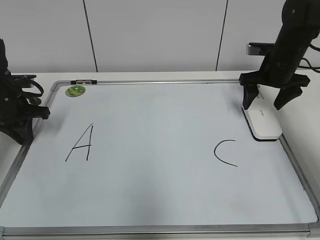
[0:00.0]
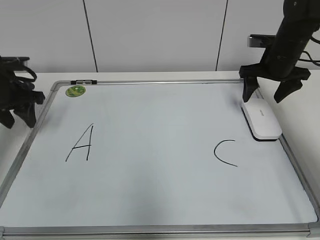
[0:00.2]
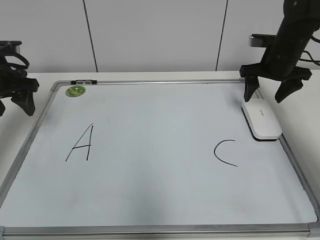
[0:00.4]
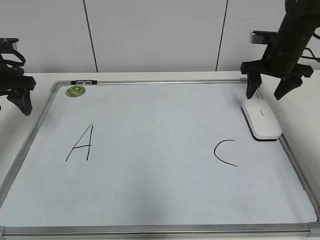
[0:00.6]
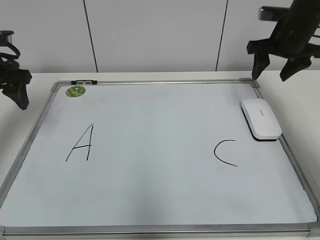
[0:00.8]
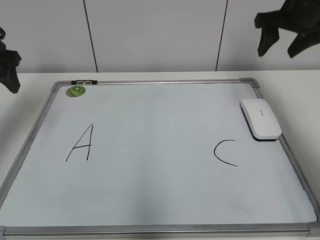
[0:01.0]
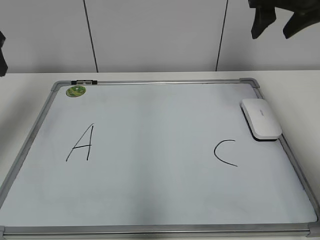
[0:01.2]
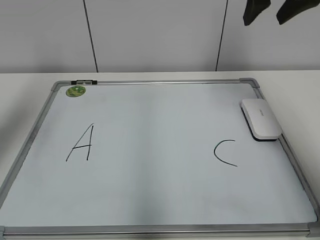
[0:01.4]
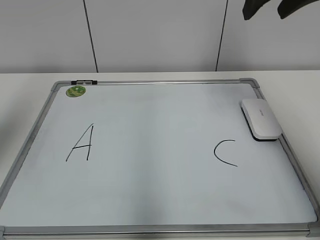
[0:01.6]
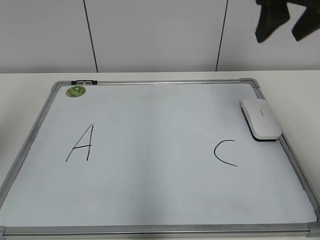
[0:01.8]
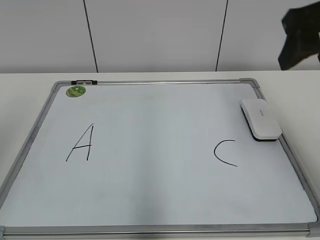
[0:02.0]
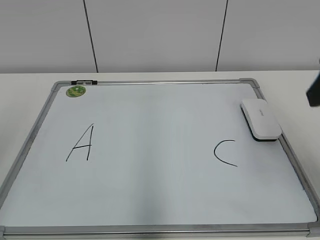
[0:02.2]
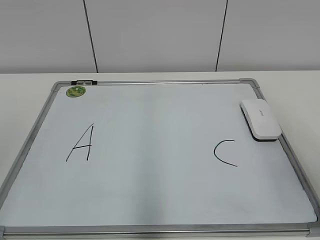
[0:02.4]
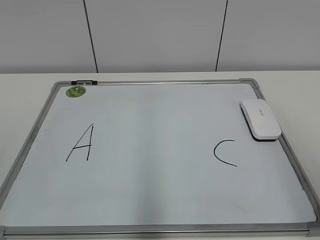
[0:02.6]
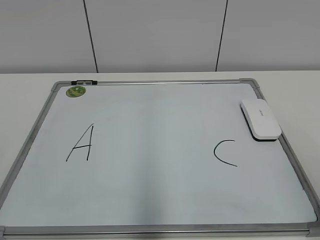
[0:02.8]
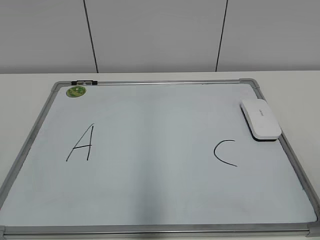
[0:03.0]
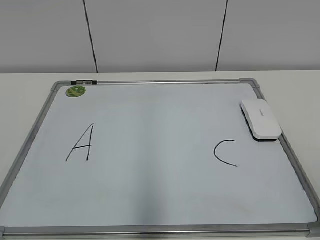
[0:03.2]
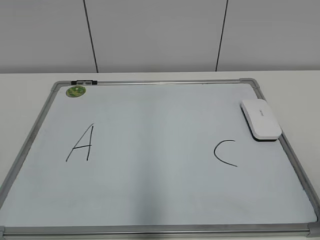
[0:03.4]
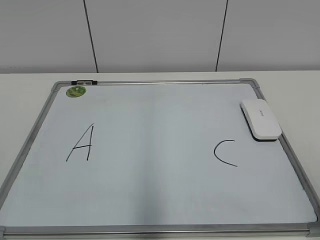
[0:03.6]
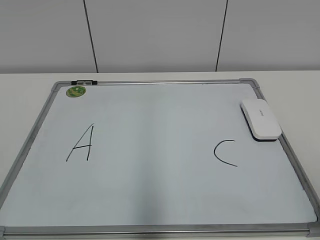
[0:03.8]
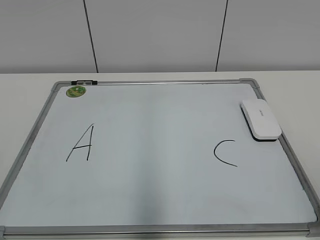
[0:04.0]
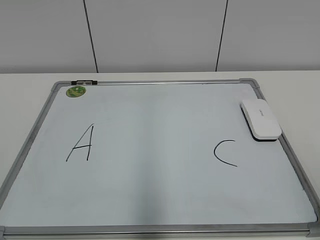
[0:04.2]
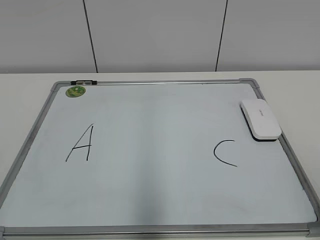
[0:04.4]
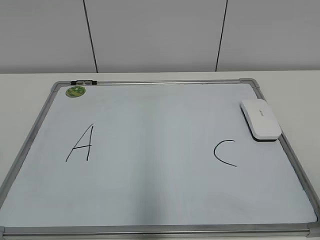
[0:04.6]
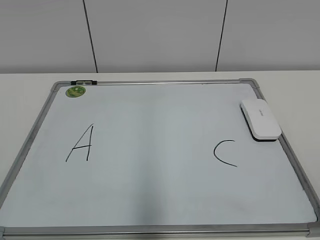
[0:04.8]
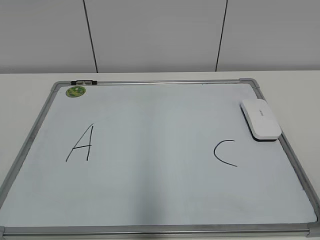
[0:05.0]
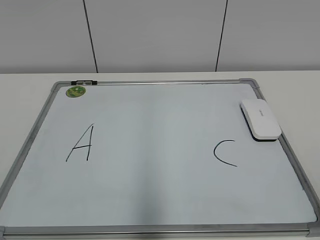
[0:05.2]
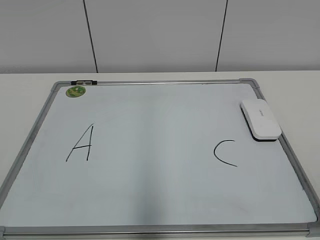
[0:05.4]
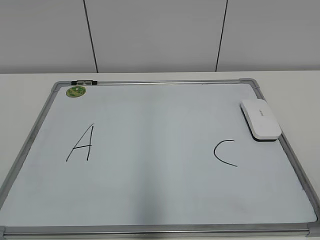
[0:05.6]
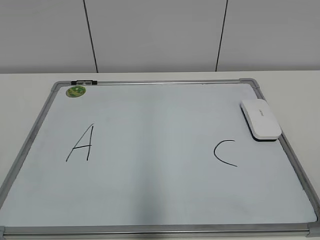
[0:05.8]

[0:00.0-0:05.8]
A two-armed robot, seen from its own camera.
Task of the whole recording: pick up the eraser on the blackboard and erase the letter "B".
0:00.0 to 0:01.4: The right gripper heads upward, covering some 20 cm, and closes its fingers; the left gripper goes approximately 25 cm upward and backward, and opens up.
0:01.4 to 0:02.8: Both grippers move backward, roughly 30 cm.

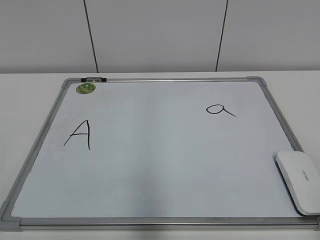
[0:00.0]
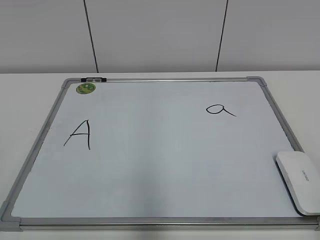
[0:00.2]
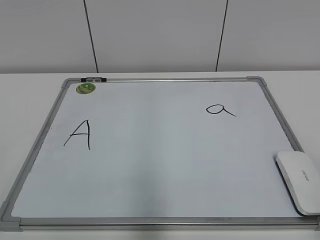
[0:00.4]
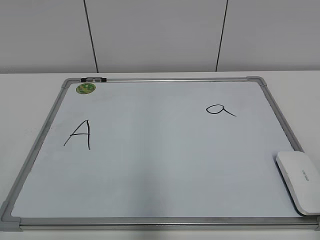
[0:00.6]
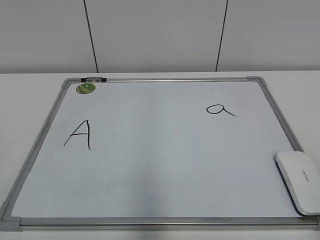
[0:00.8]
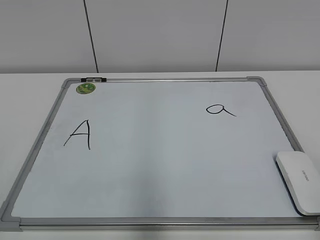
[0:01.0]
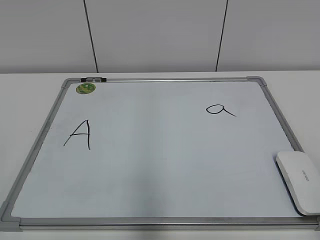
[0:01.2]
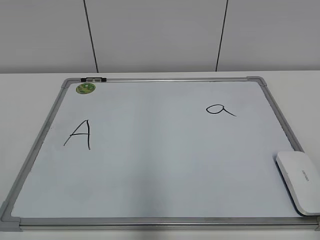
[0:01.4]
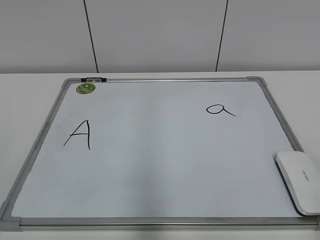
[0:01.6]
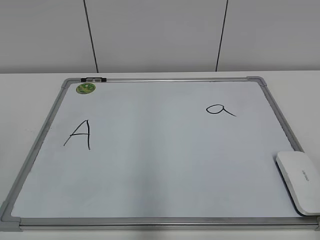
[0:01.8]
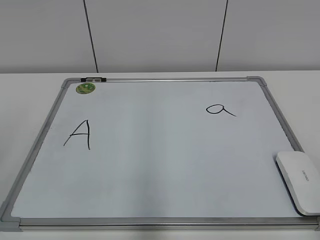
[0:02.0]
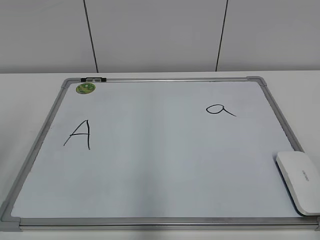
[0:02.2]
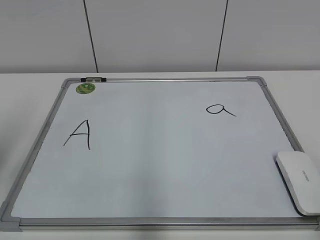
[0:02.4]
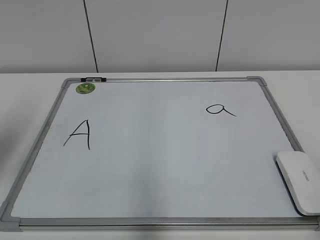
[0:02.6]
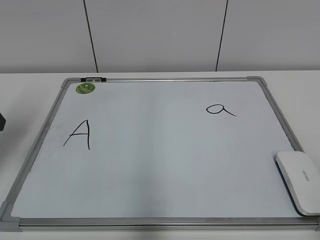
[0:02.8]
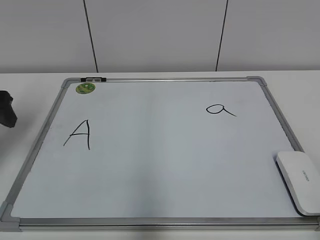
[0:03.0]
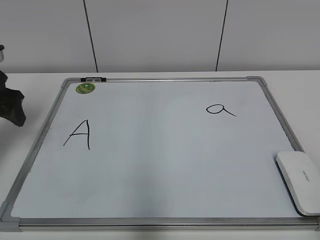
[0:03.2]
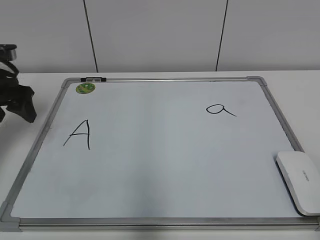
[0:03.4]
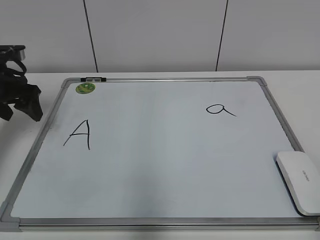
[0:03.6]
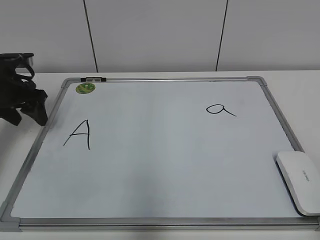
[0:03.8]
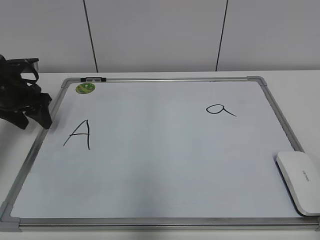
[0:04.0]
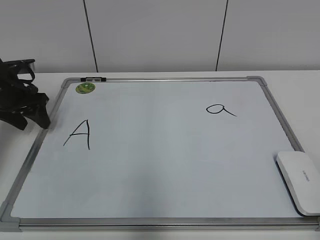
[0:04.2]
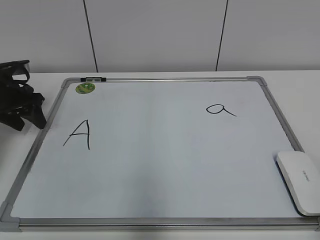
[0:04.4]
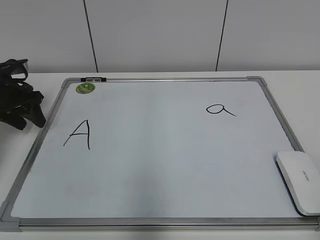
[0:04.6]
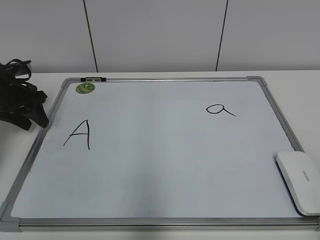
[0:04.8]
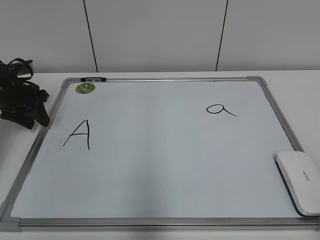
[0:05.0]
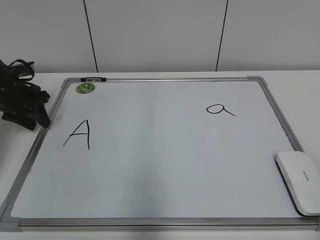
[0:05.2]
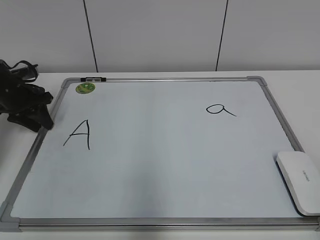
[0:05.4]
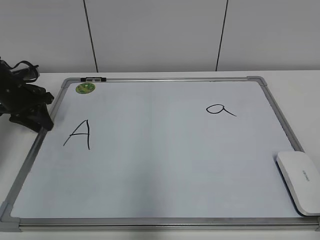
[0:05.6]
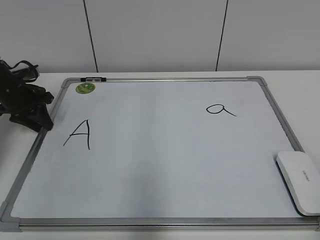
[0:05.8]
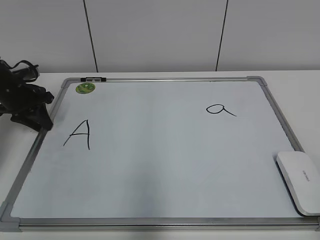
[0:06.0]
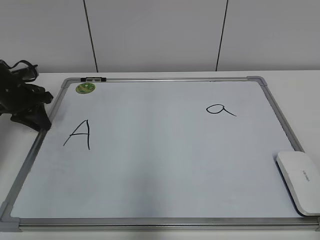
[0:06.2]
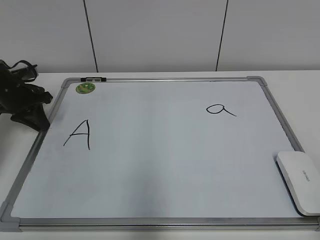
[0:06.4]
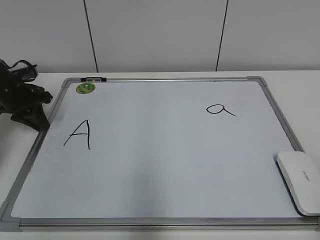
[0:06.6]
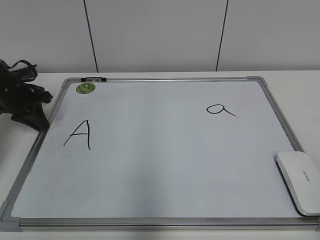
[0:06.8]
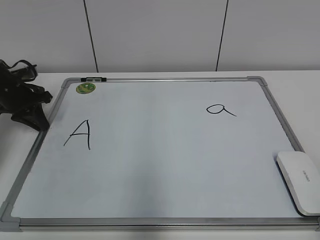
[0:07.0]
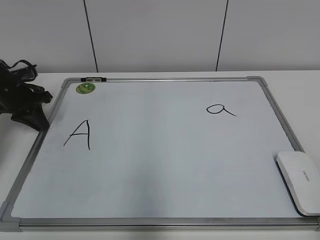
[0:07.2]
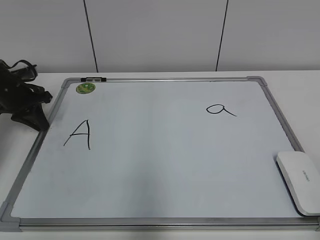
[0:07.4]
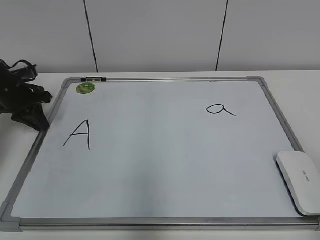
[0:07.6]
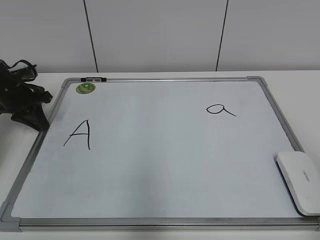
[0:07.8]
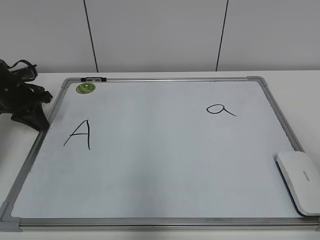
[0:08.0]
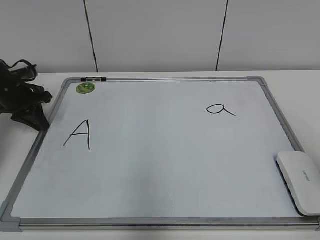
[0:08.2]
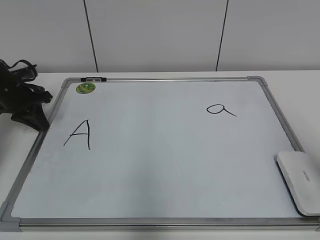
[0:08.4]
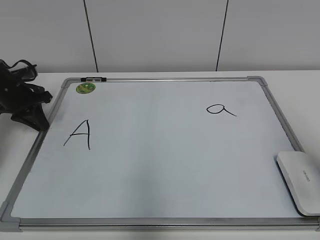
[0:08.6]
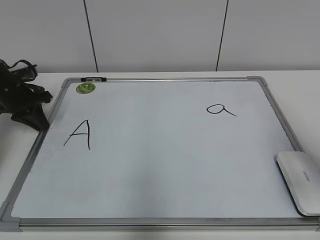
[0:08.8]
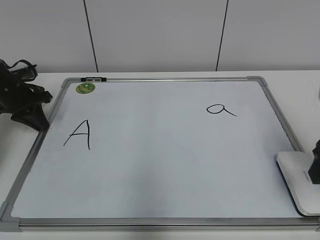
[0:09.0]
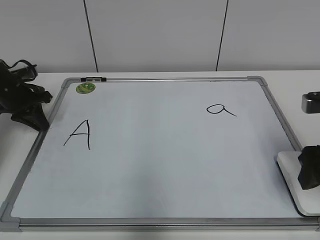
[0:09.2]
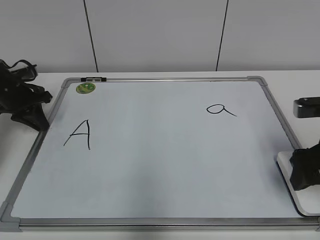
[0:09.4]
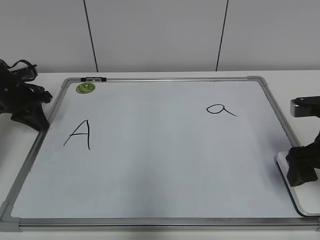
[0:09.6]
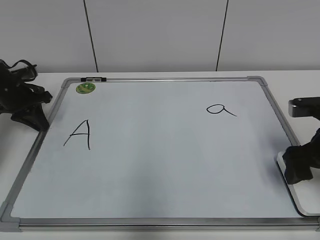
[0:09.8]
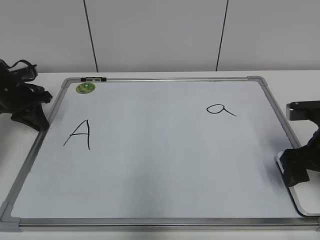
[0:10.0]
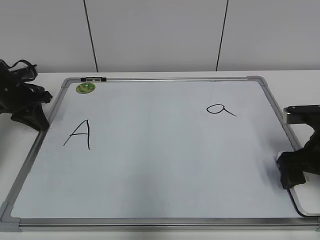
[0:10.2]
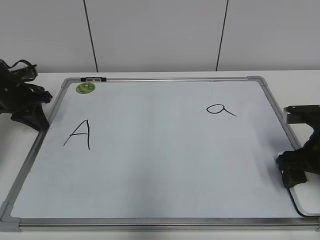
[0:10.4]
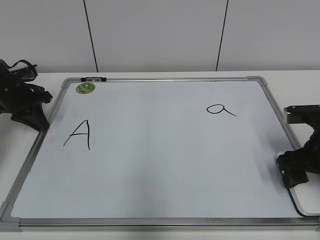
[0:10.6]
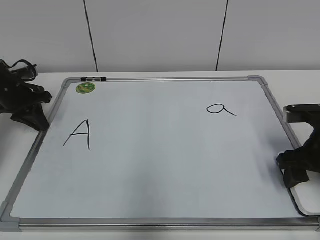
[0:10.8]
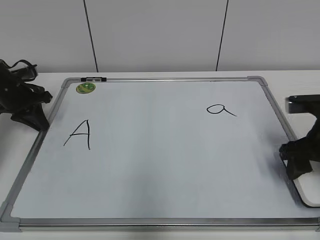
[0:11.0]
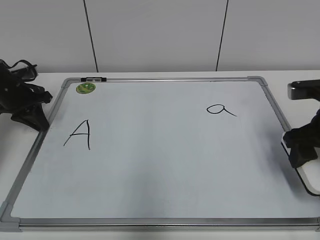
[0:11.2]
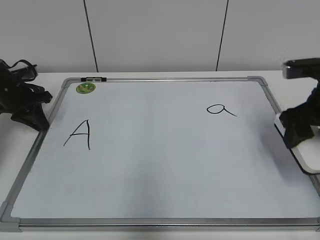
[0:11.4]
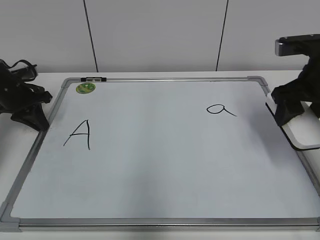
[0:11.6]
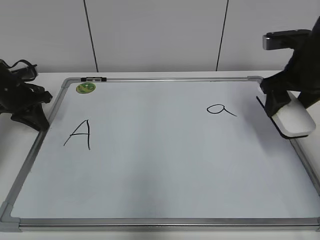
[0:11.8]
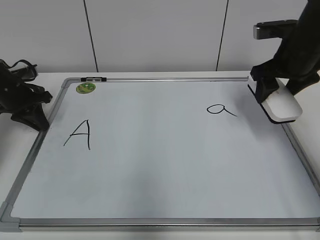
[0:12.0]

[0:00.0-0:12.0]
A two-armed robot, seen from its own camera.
Task of the whole recording: pick up the eraser on the blackboard and erase the letter "a".
Step, 0:00.0 to 0:06.2: Hold the drawing board steady with your left hand.
Step, 0:06.4 to 0:10.6: Grab the eraser with your right hand.
0:01.6 to 0:03.0: The left gripper is displaced forward by some 30 cm.
0:03.0 to 0:04.4: The left gripper heads forward and downward, covering some 10 cm.
0:04.4 to 0:06.0: The left gripper closes its fingers.
0:07.6 to 0:09.0: The right gripper moves forward, about 20 cm.
0:09.0 to 0:10.4: The right gripper goes approximately 10 cm downward and forward, and opens, then closes again.
0:10.4 to 0:12.0: The right gripper is displaced forward and upward by approximately 15 cm, and closes up.

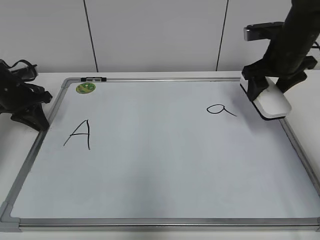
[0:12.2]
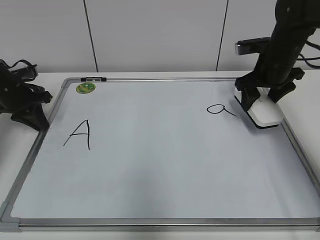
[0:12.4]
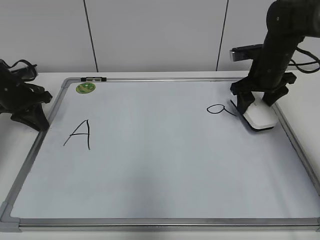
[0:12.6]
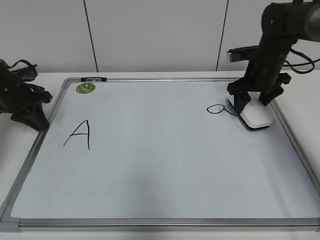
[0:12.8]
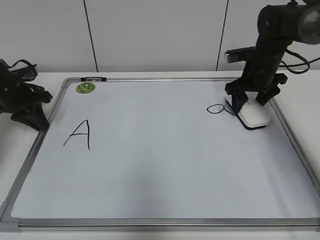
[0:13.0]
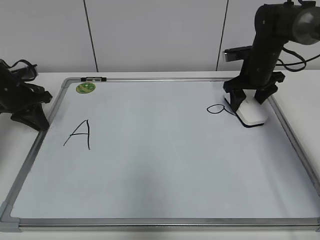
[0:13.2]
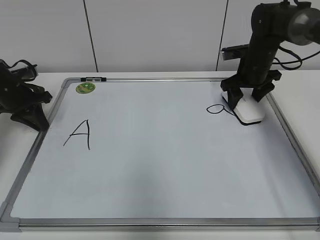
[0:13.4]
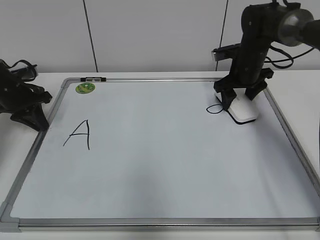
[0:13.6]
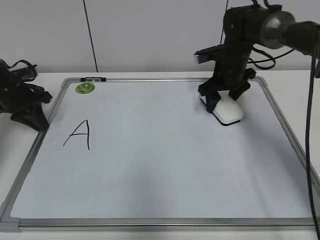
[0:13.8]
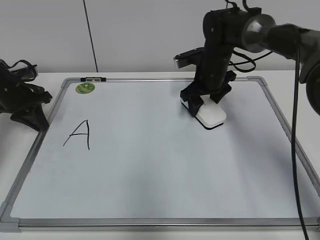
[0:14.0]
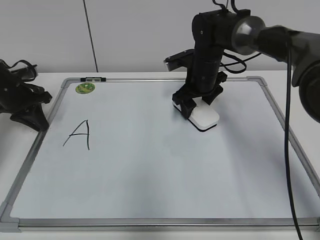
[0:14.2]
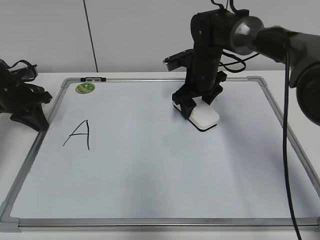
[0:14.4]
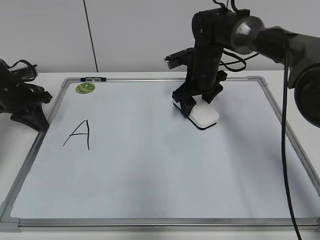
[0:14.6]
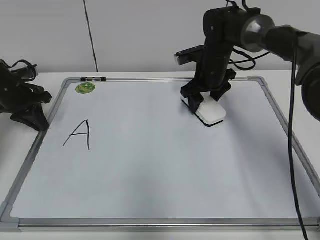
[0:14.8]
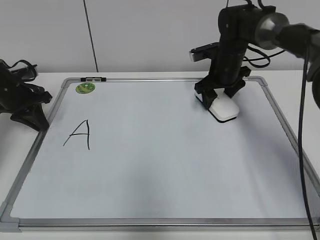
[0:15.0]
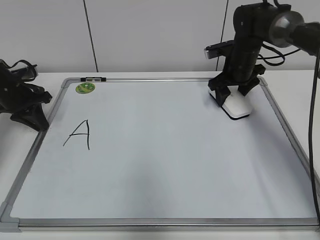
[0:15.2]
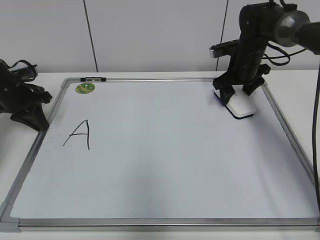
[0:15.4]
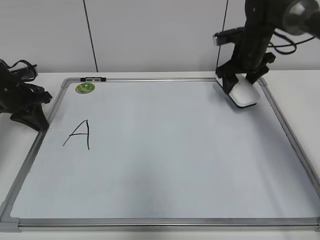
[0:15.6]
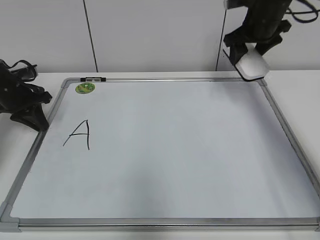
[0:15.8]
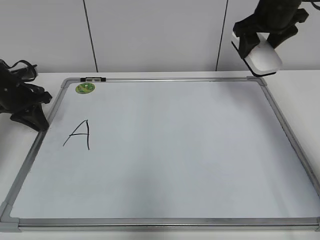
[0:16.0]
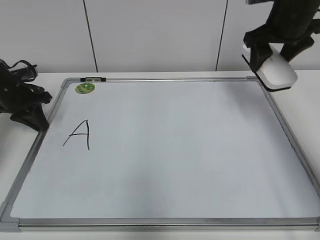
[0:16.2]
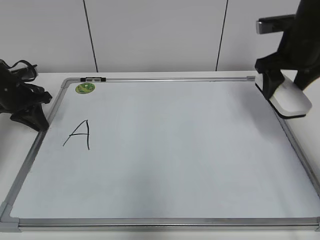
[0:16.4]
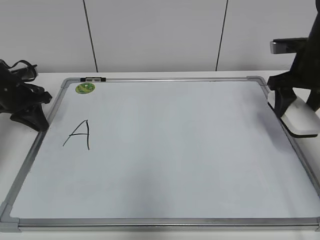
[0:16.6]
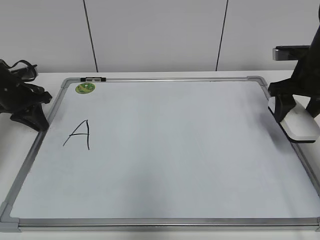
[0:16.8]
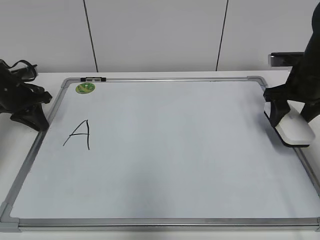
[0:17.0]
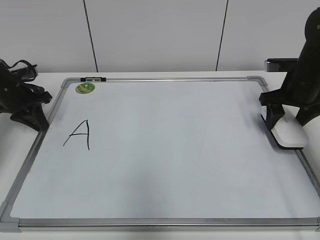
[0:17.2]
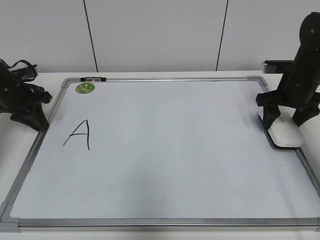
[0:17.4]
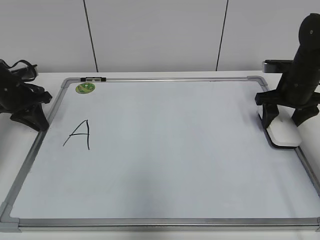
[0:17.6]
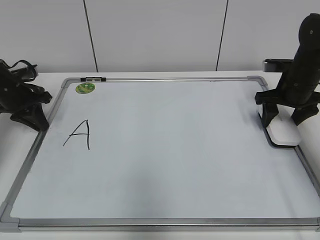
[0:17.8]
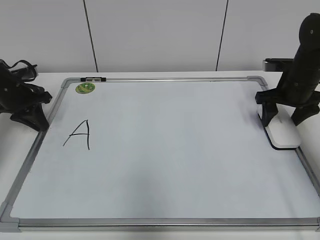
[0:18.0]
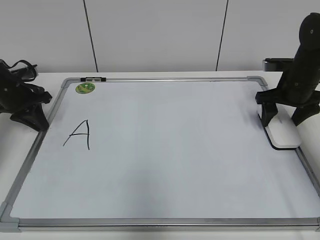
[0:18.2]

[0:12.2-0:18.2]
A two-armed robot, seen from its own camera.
Task of the whole recording: pick up the eraser on the blackboard and erase the letter "a".
Step, 0:12.2 to 0:15.0: Erase the letter a with your right hand.
Step, 0:15.4 to 0:18.2: Put down the eraser with your right hand.
0:12.2 to 0:13.8: The right gripper shifts some 10 cm to the left, downward and forward.
0:13.8 to 0:15.2: The grippers make only small movements.
0:15.2 to 0:16.6: The right gripper shifts about 15 cm backward, to the right and upward.
0:16.6 to 0:18.2: The right gripper is displaced downward by about 5 cm, and opens.
